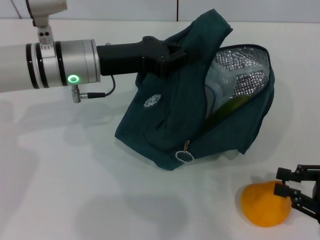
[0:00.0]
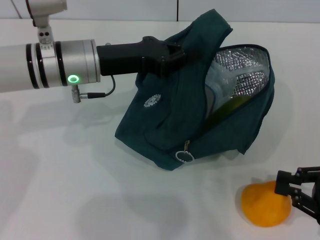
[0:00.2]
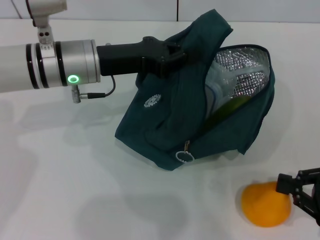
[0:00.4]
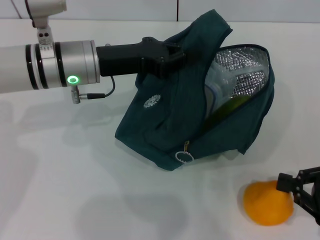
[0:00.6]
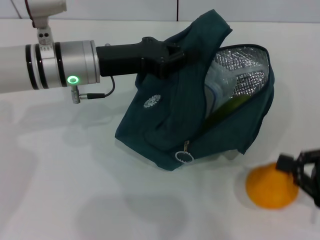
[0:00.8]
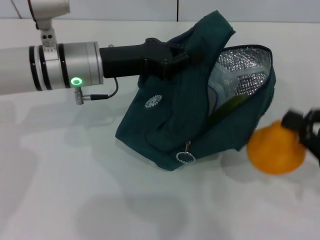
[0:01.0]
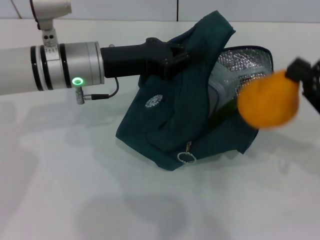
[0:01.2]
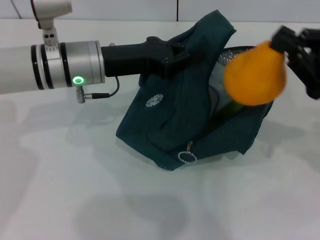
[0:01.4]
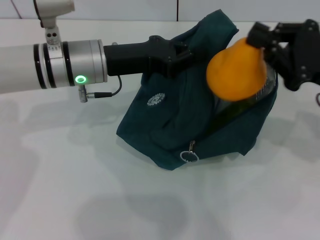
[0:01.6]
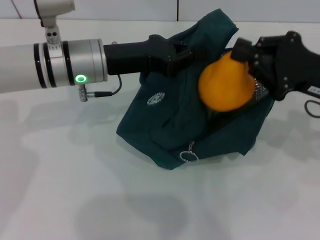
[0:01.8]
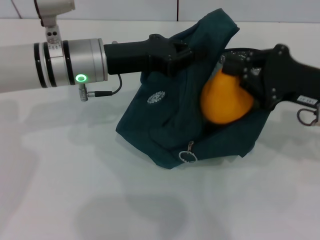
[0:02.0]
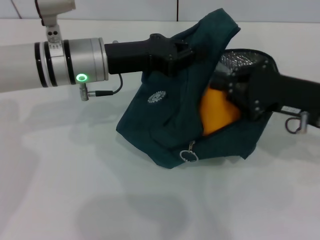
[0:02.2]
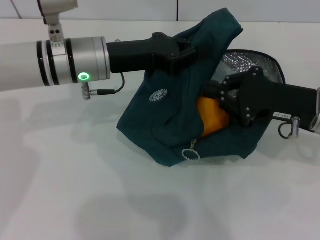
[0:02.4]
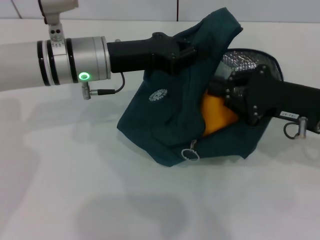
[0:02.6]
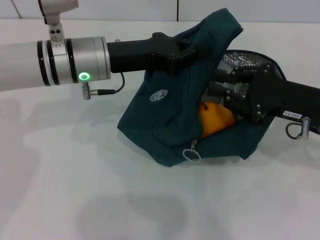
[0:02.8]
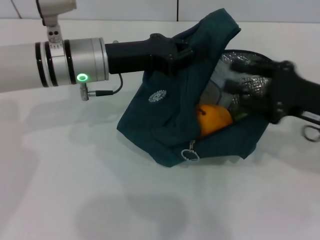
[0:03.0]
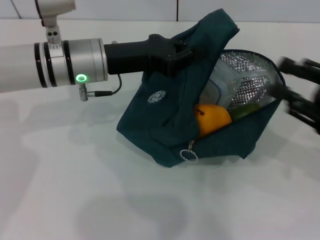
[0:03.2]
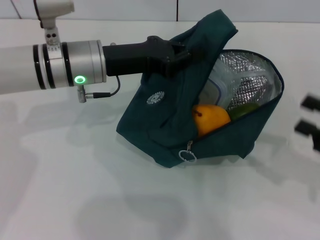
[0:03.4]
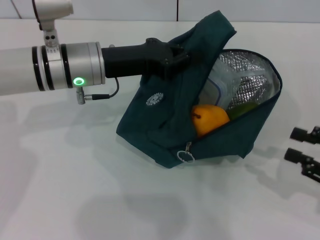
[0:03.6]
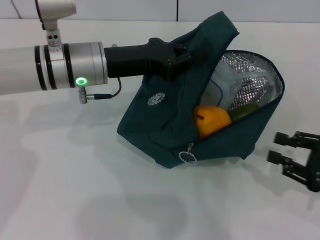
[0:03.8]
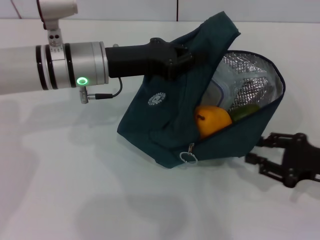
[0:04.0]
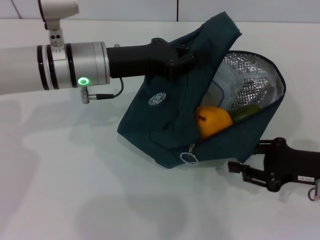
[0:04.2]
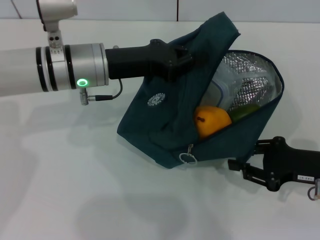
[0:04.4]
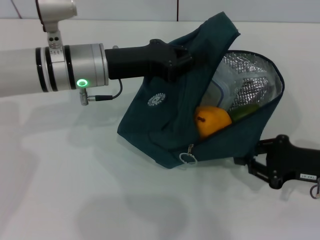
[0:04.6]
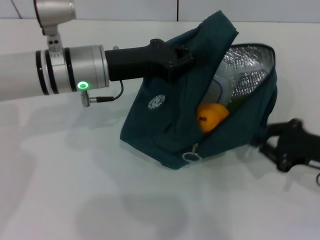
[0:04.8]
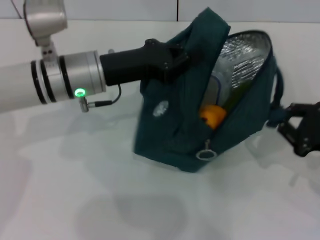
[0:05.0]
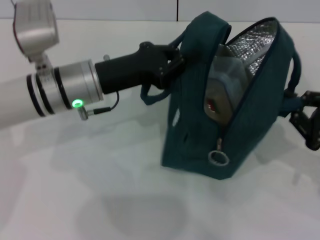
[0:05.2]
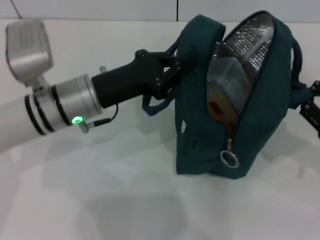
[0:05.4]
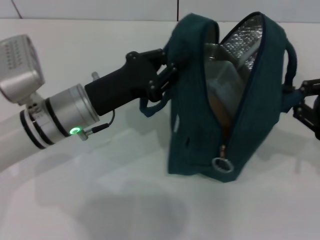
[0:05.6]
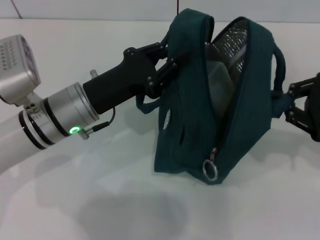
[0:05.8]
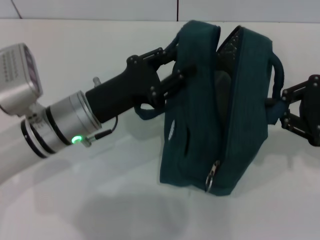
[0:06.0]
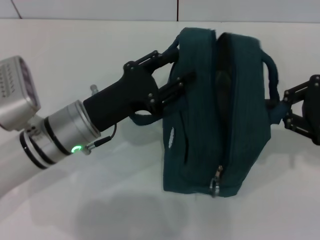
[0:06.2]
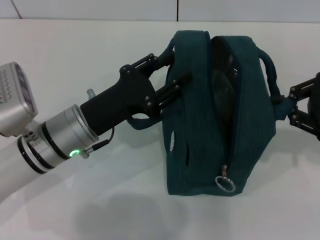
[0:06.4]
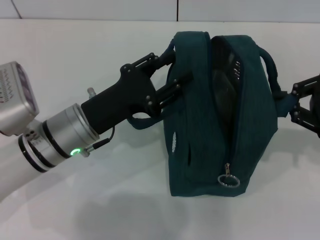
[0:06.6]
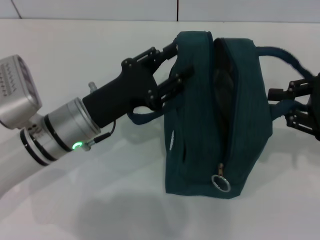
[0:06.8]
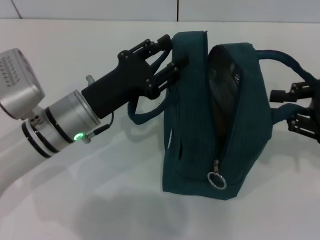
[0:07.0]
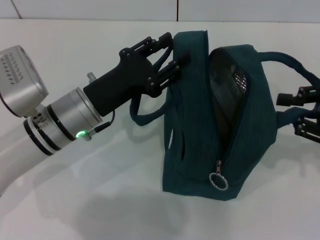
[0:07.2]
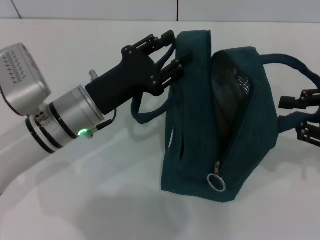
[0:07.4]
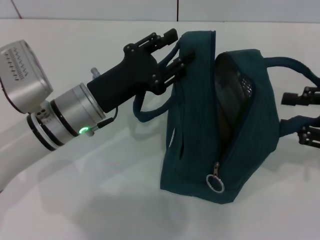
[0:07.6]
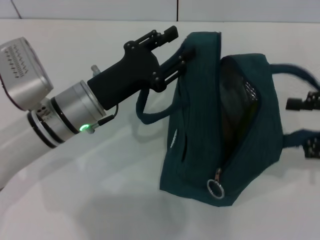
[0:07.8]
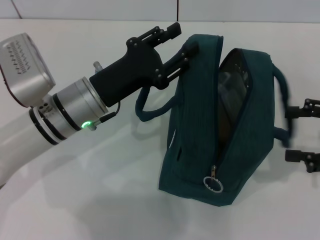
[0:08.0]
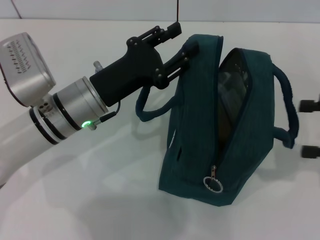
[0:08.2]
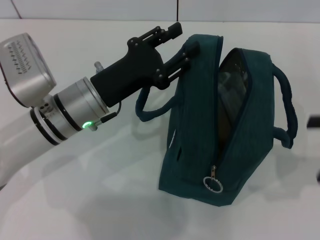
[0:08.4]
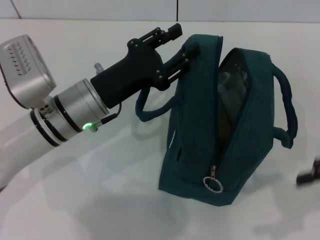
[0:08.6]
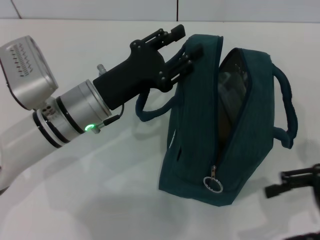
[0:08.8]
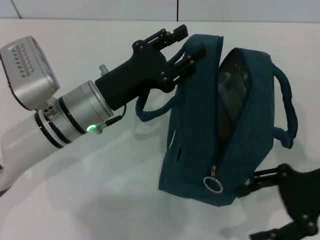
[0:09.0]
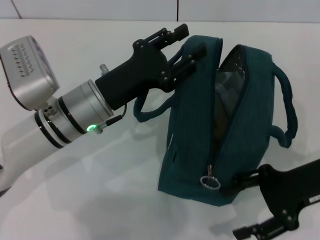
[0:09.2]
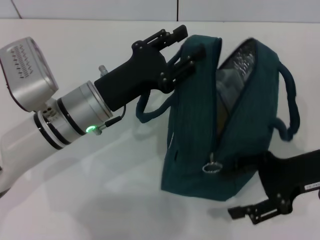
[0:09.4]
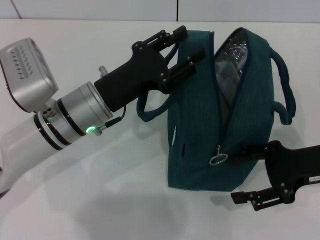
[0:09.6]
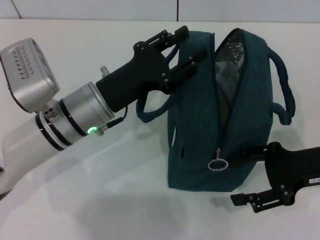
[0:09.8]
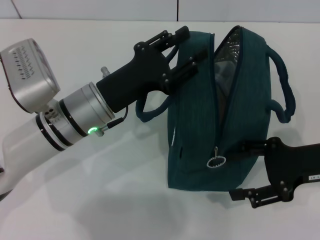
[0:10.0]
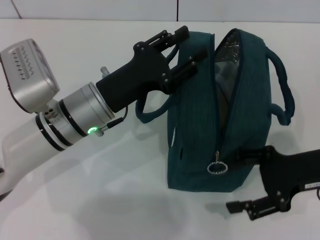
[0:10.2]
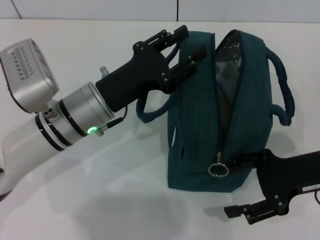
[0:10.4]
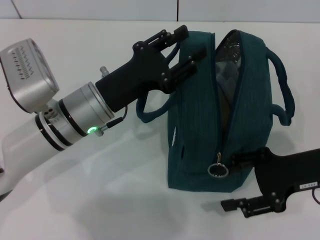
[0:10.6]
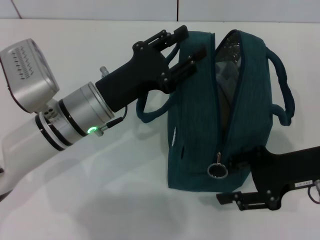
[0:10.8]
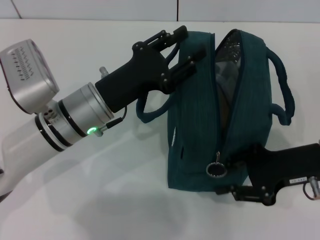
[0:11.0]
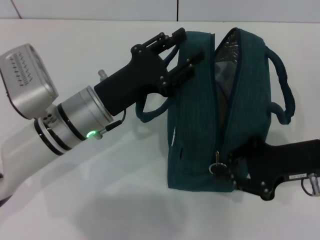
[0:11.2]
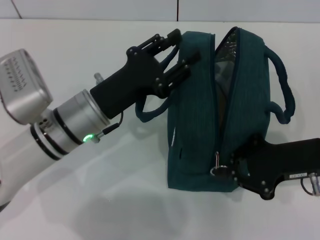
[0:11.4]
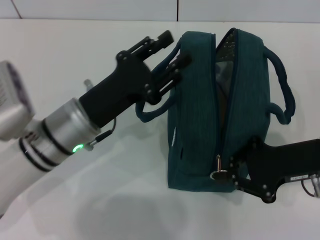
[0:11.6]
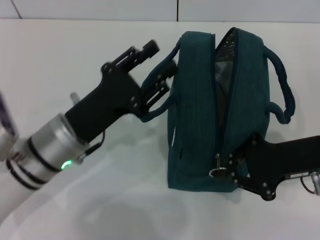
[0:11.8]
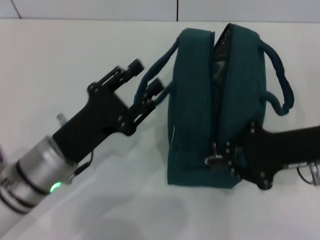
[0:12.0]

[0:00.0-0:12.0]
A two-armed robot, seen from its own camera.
Step, 0:03.2 to 0:07.6: Hold the lunch bag with your left hand.
0:00.0 to 0:01.6: The right gripper goes approximately 15 cm forward, upward and to the left, and closes up.
0:01.6 to 0:03.0: The grippers move only a little.
0:03.0 to 0:04.4: The right gripper goes about 5 cm downward, and reaches some 10 cm to the right, then returns.
0:04.4 to 0:06.0: The left gripper heads backward, covering roughly 5 cm. The right gripper heads upward, covering about 10 cm, and closes.
0:06.0 to 0:07.6: The left gripper opens up.
0:07.6 to 0:09.0: The right gripper heads to the left, covering about 5 cm, and opens.
0:09.0 to 0:10.4: There are only small adjustments of the grippers.
0:10.4 to 0:12.0: The right gripper closes. The left gripper is displaced backward by approximately 5 cm.

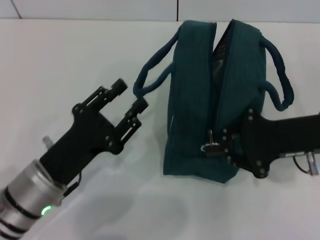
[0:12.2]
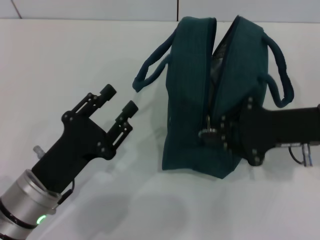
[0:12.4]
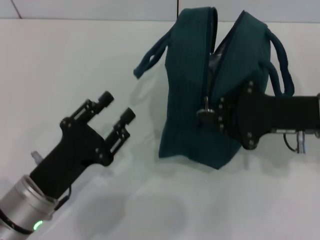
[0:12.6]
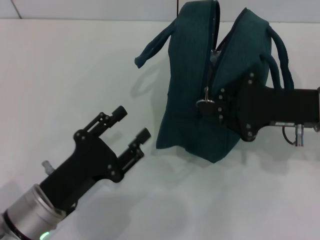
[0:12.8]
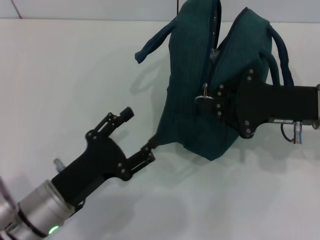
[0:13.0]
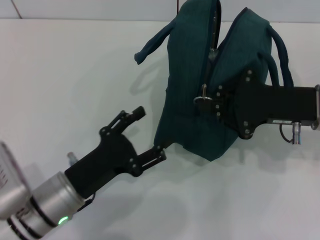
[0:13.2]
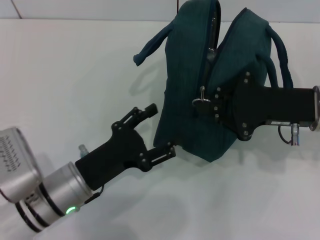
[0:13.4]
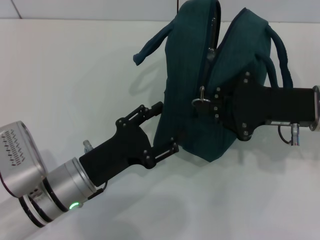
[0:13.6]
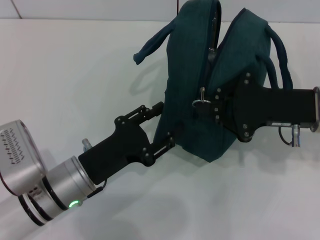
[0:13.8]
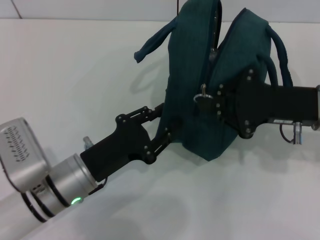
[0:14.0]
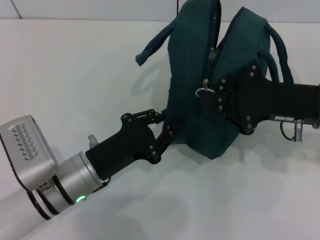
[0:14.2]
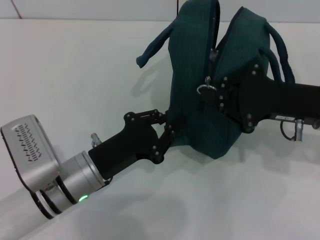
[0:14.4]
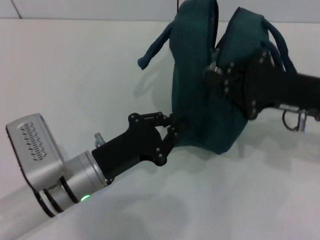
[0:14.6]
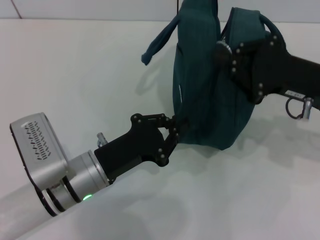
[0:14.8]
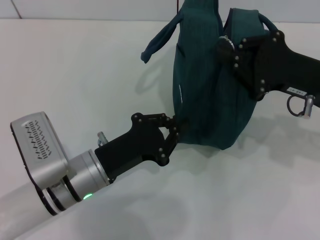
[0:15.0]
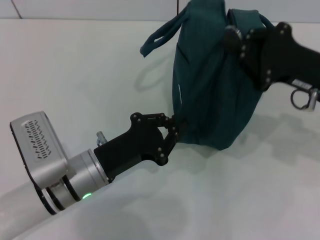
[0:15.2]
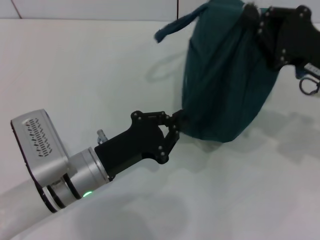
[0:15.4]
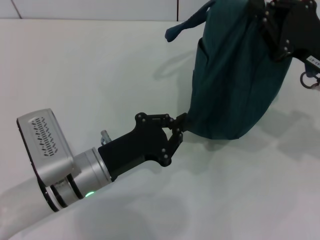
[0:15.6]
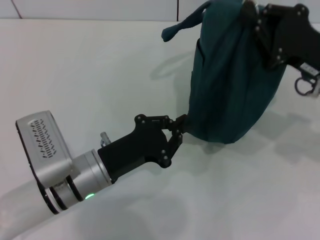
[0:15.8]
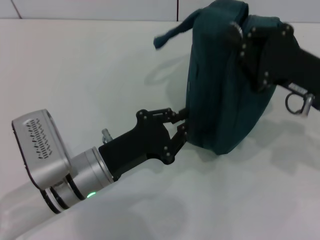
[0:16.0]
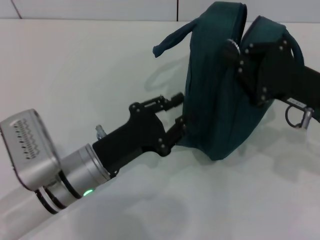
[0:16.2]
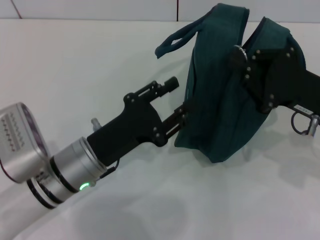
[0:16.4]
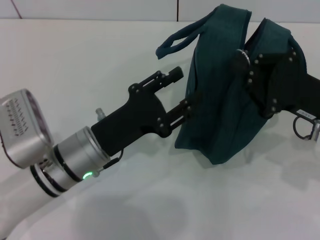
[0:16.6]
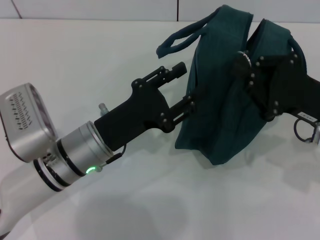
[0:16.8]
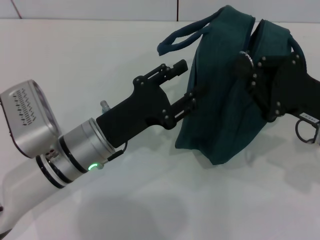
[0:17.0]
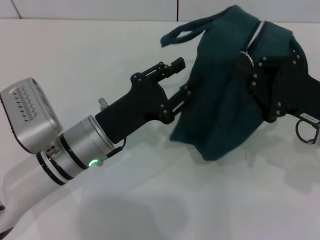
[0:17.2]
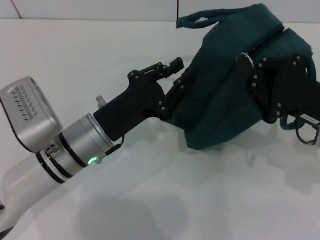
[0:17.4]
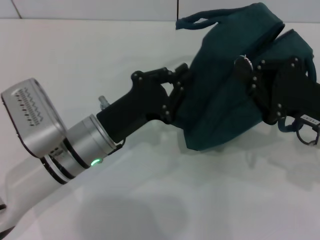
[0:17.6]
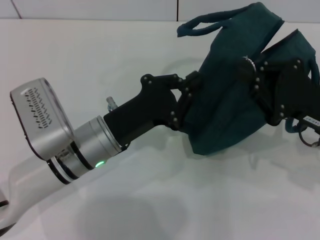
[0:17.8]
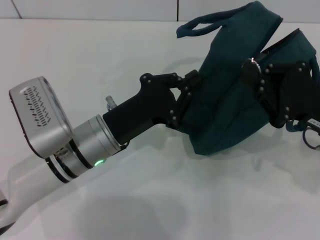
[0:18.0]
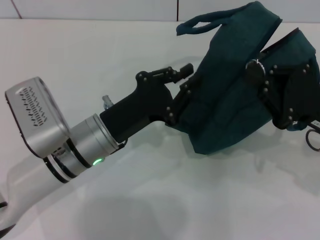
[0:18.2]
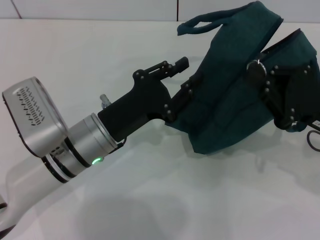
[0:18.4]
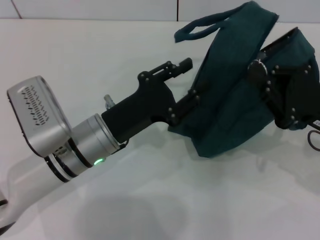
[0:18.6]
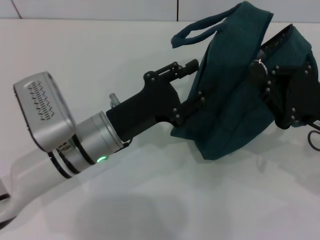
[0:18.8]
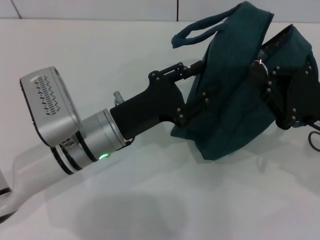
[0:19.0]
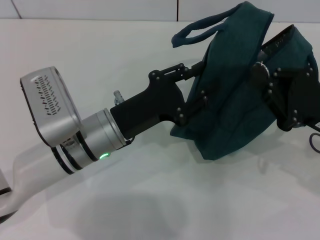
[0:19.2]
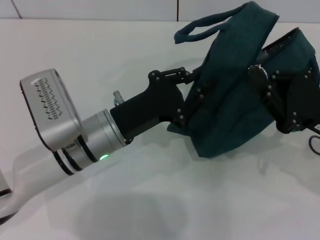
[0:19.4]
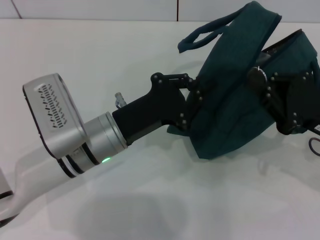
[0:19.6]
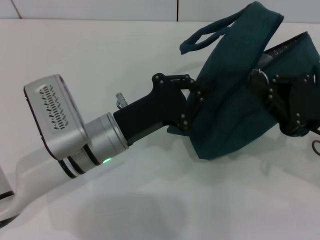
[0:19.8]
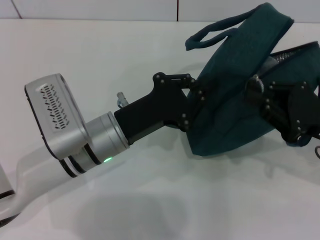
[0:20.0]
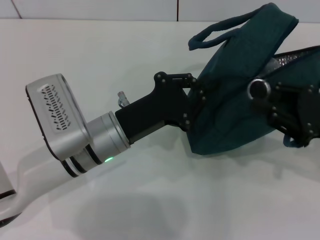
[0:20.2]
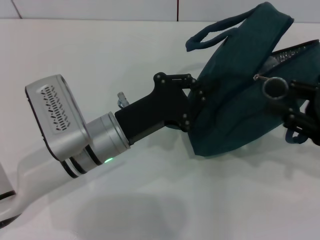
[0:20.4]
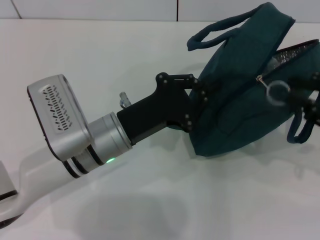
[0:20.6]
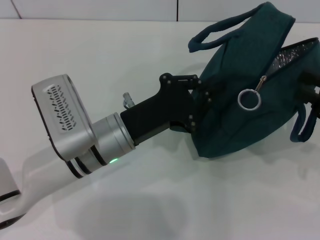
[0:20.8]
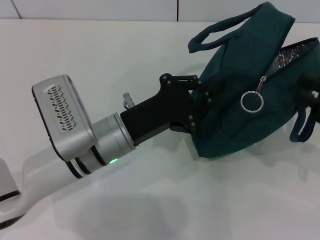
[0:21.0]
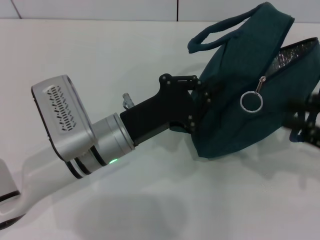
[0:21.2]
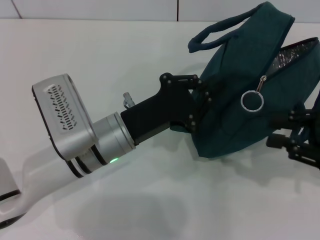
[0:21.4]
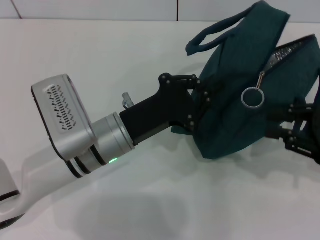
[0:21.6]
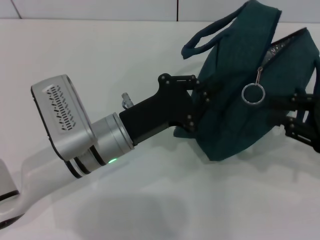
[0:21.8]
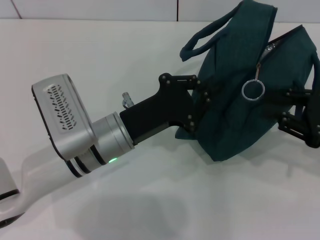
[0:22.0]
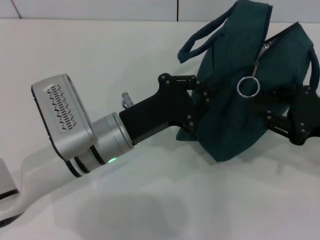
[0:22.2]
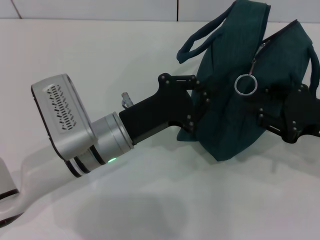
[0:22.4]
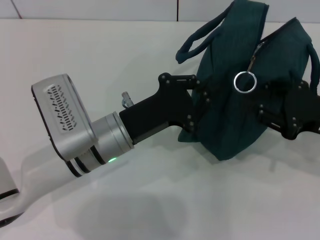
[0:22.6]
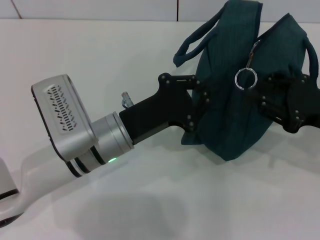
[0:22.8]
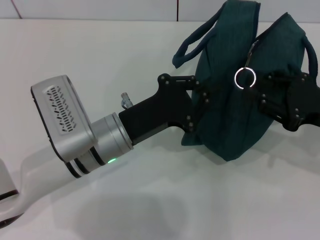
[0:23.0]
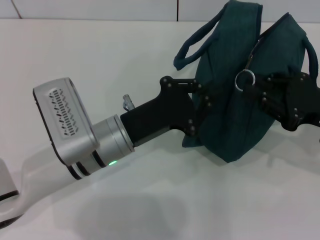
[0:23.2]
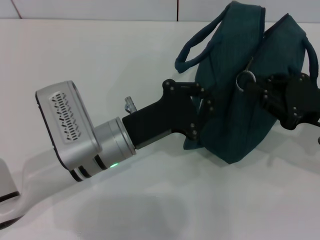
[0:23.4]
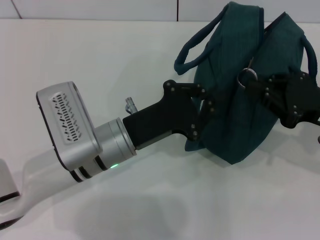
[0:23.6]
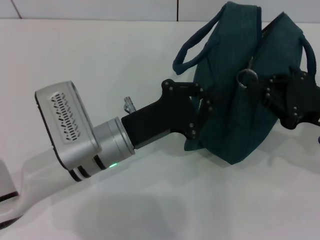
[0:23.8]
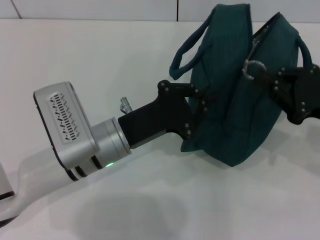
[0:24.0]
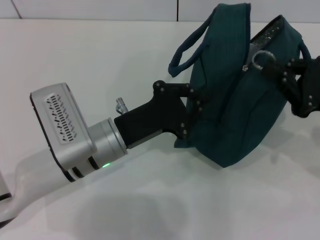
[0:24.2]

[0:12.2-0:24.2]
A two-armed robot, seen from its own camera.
0:13.8 to 0:15.2: The left gripper closes its fingers.
0:15.2 to 0:16.6: The left gripper opens.
0:16.6 to 0:18.2: The left gripper closes up.
0:18.2 to 0:19.8: The left gripper opens, then closes once more.
0:19.8 to 0:21.2: The right gripper shifts some 5 cm to the right, and opens its fingers.
0:21.2 to 0:22.6: The right gripper changes place by roughly 5 cm.
0:22.6 to 0:24.2: The right gripper closes up.
